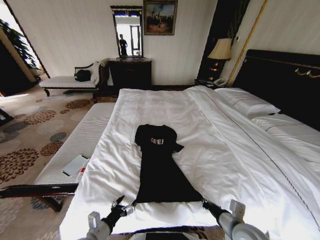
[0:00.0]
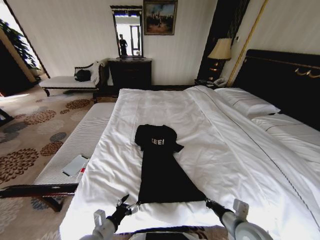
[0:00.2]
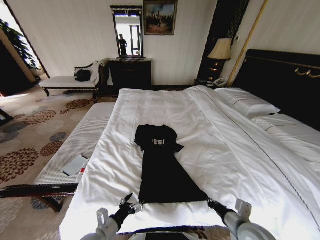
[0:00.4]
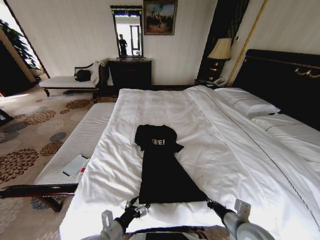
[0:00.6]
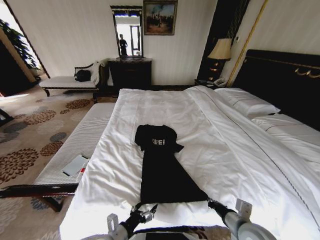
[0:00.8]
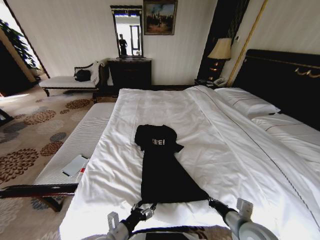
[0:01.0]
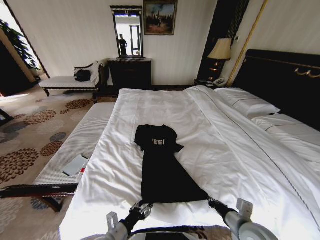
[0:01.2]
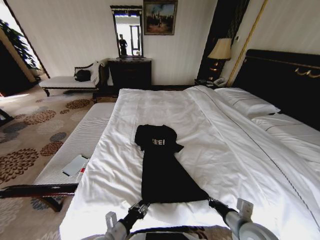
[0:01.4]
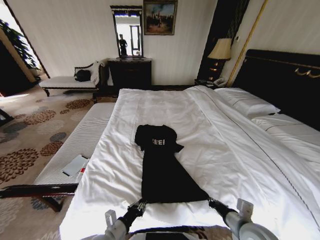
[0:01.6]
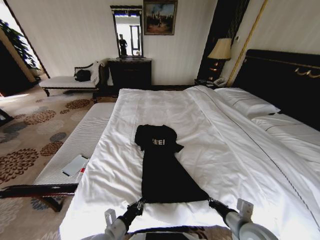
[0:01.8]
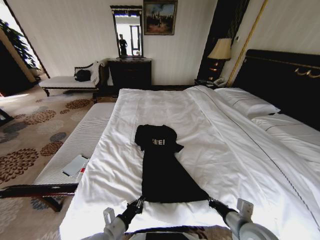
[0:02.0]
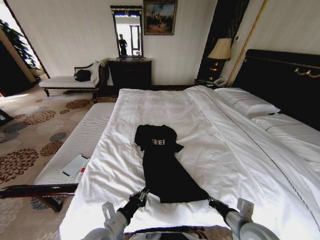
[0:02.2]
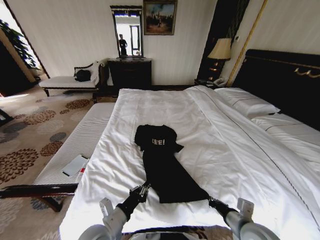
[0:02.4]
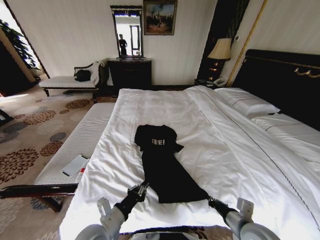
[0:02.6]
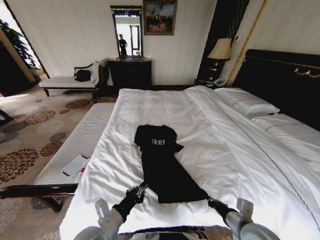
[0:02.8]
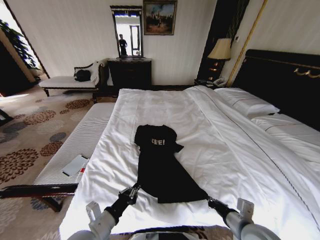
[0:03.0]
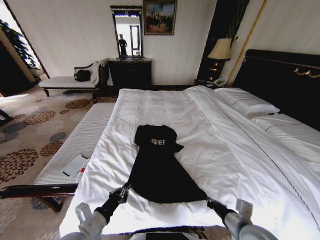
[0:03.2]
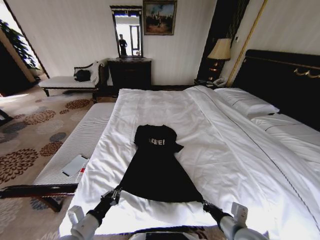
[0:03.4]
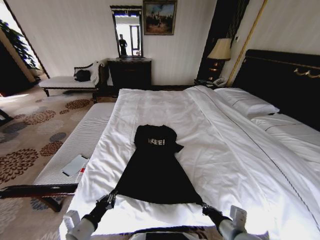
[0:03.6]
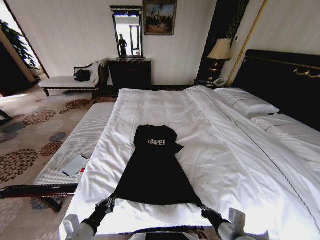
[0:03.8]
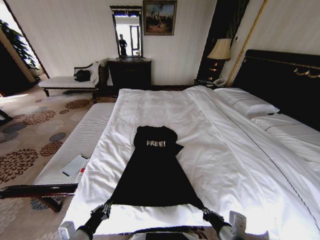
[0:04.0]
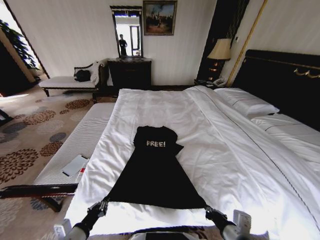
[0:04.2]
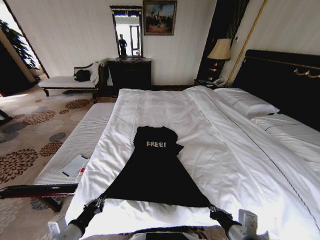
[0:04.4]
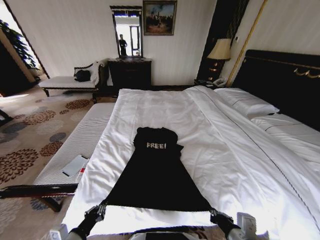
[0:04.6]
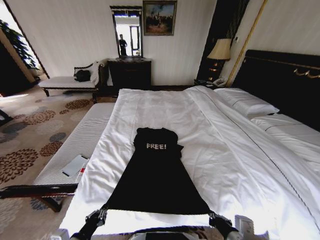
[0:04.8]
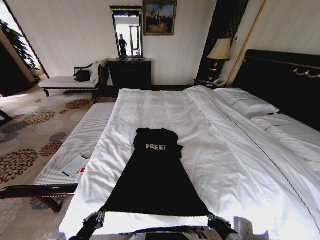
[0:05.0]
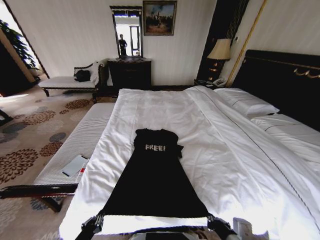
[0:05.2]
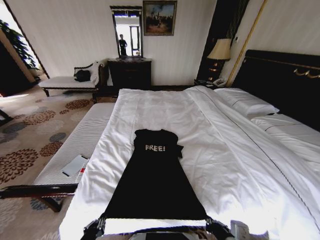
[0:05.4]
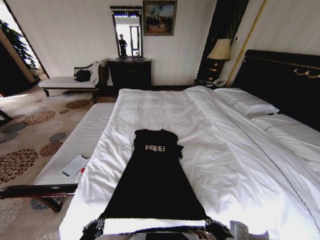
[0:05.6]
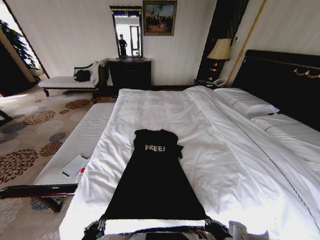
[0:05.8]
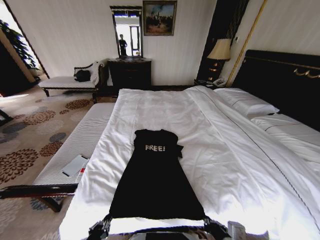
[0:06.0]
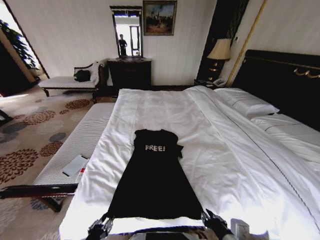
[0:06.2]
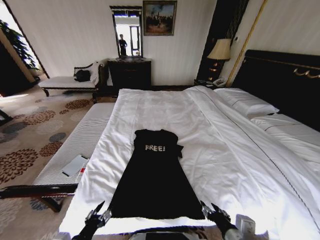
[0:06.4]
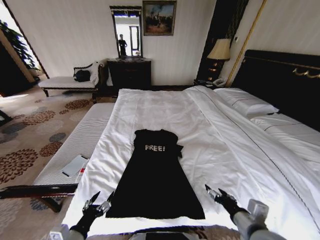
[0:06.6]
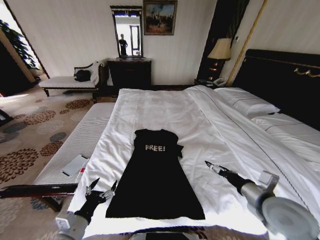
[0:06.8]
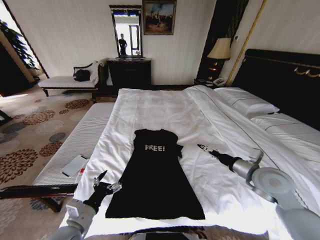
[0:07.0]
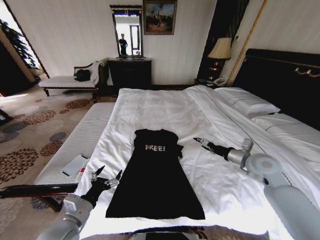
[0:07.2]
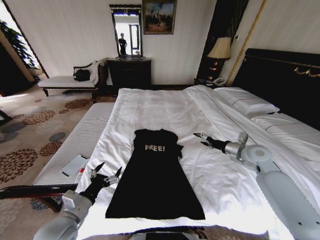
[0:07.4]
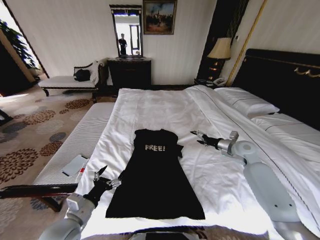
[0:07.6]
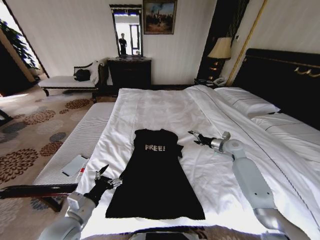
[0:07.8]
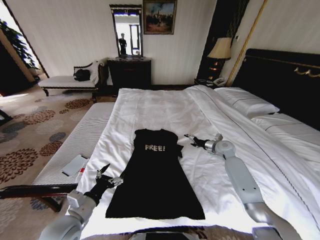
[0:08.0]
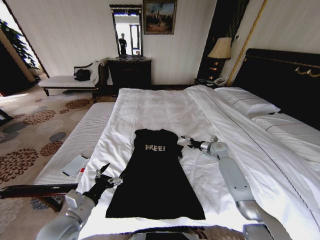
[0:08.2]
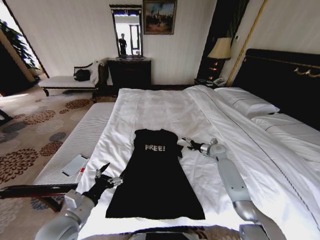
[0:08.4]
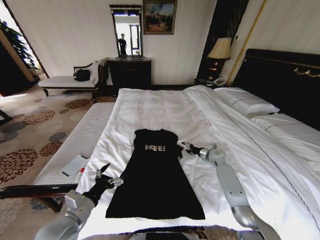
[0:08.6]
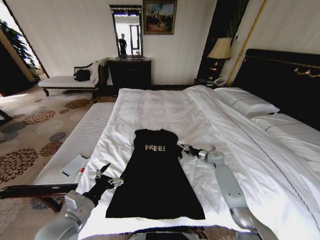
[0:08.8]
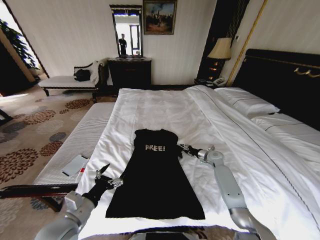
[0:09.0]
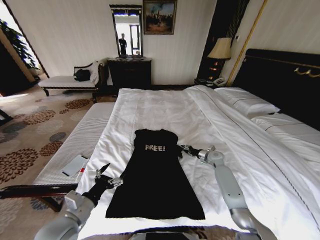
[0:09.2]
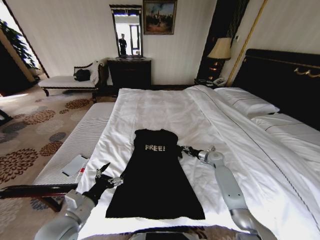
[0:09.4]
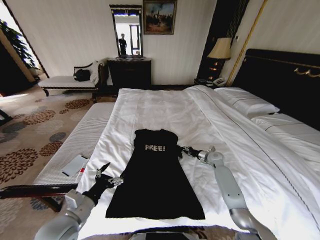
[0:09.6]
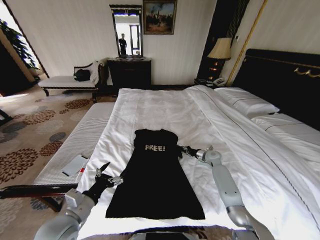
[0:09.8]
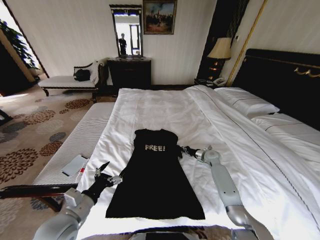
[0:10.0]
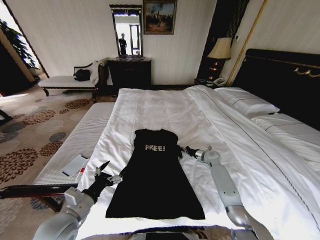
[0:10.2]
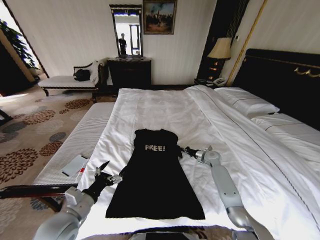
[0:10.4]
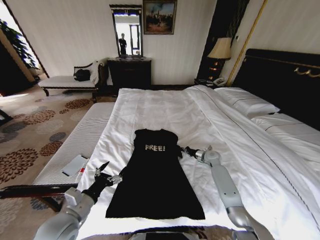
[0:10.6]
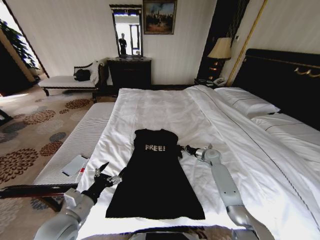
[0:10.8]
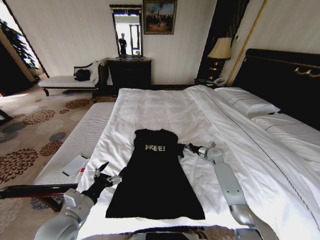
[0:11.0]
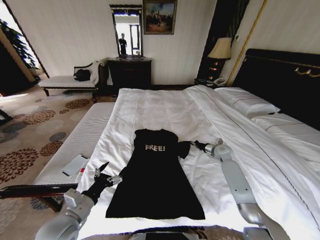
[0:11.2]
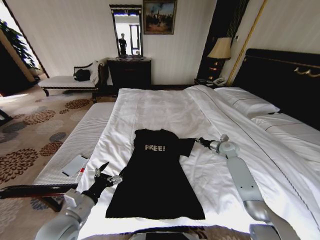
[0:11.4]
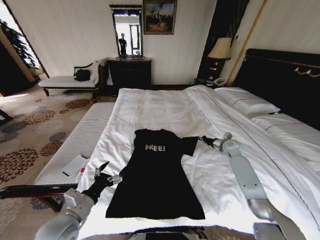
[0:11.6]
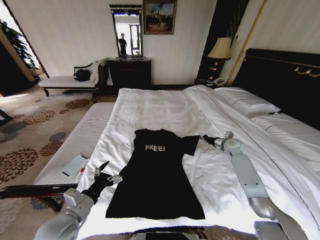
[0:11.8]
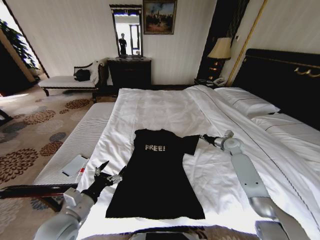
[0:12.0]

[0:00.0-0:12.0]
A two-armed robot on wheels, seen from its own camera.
Task of the whole recording: Fold the clothes on the bed.
0:00.0 to 0:01.6: The left gripper shifts approximately 5 cm to the right, and closes its fingers.
0:01.6 to 0:03.0: The left gripper moves upward, some 10 cm.
0:03.0 to 0:04.4: The left gripper moves to the left, about 10 cm. Meanwhile the right gripper changes place by approximately 5 cm.
0:04.4 to 0:06.0: The left gripper moves backward, roughly 5 cm.
0:06.0 to 0:07.6: The right gripper heads forward and to the right, covering approximately 40 cm, and opens its fingers; the left gripper goes roughly 15 cm forward and upward, and opens.
0:07.6 to 0:09.0: The right gripper moves downward, roughly 15 cm, and closes its fingers.
0:09.0 to 0:10.4: The right gripper closes its fingers.
0:10.4 to 0:12.0: The right gripper shifts about 15 cm upward and to the right.

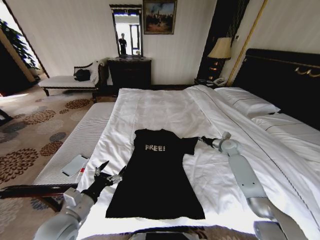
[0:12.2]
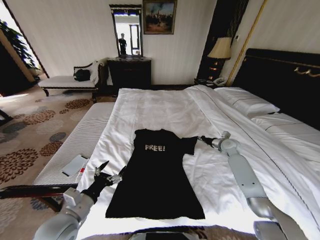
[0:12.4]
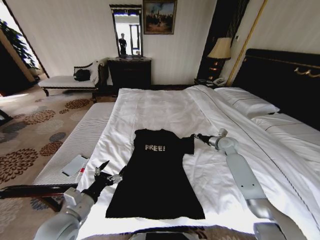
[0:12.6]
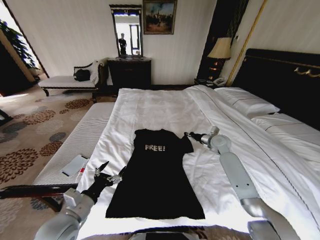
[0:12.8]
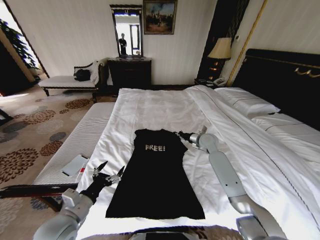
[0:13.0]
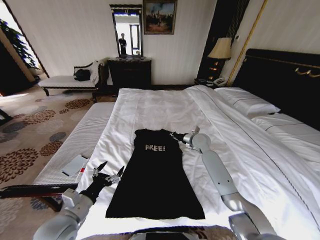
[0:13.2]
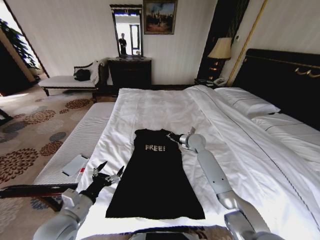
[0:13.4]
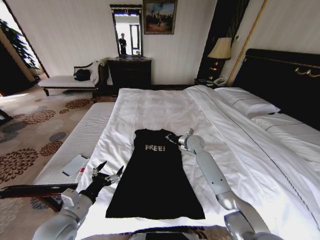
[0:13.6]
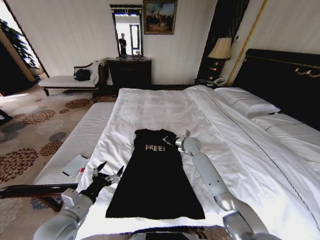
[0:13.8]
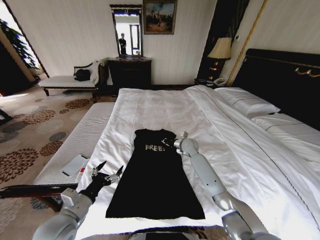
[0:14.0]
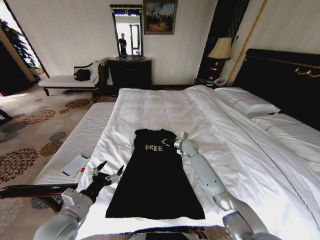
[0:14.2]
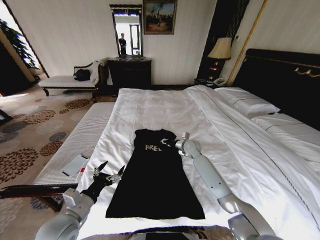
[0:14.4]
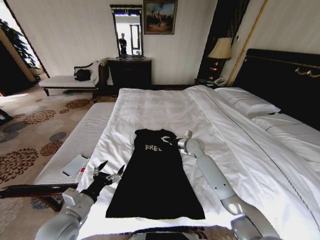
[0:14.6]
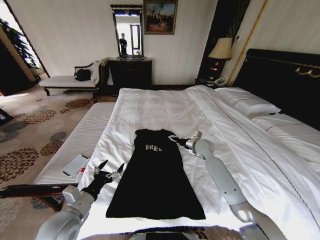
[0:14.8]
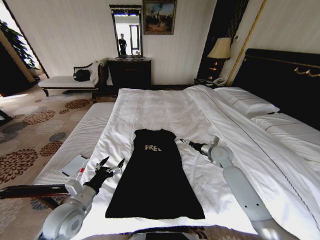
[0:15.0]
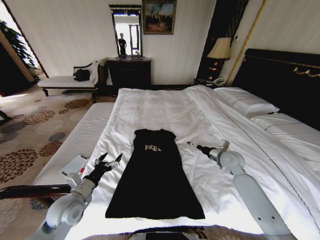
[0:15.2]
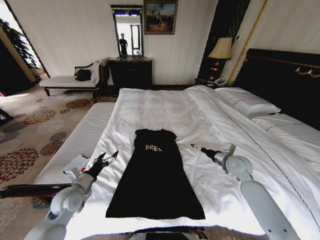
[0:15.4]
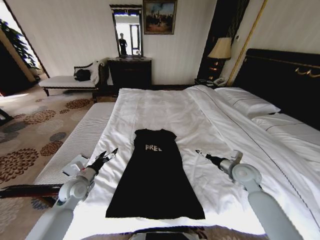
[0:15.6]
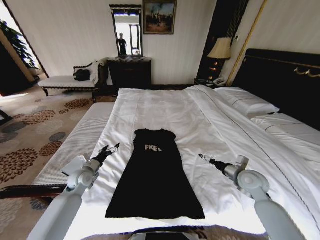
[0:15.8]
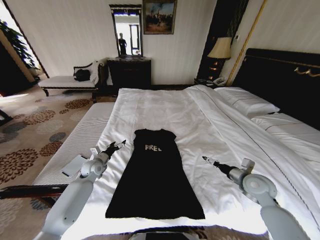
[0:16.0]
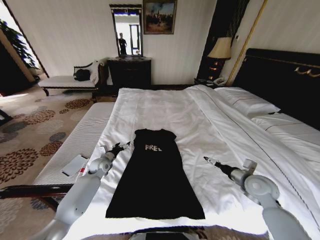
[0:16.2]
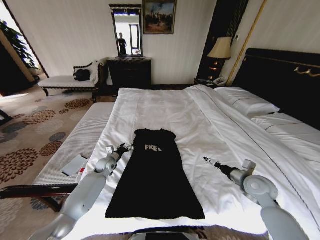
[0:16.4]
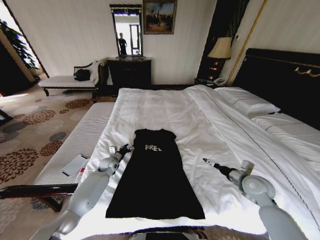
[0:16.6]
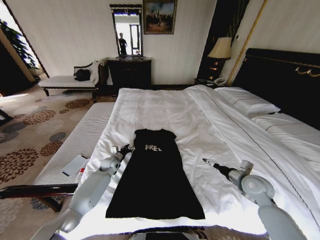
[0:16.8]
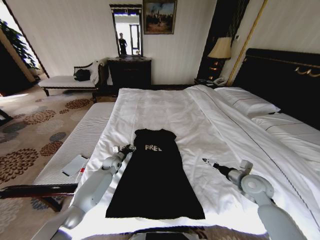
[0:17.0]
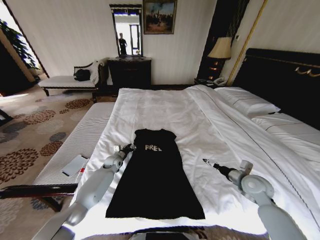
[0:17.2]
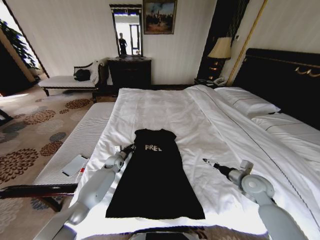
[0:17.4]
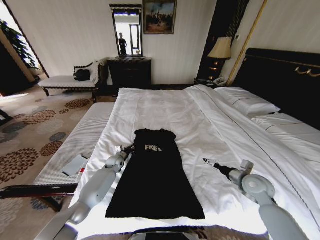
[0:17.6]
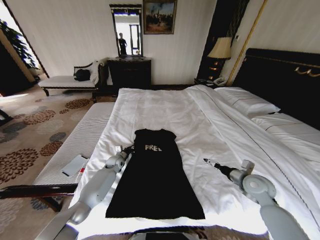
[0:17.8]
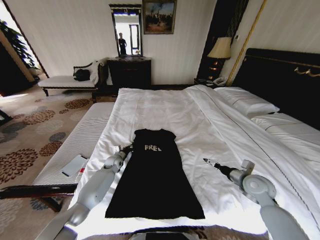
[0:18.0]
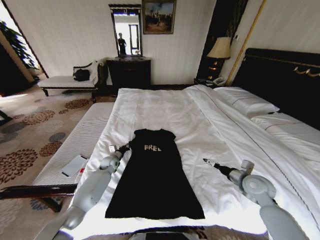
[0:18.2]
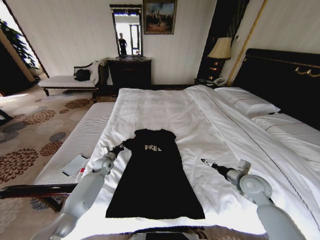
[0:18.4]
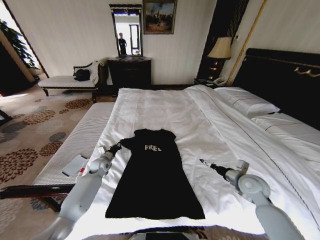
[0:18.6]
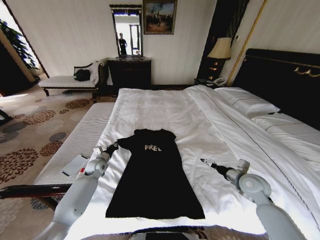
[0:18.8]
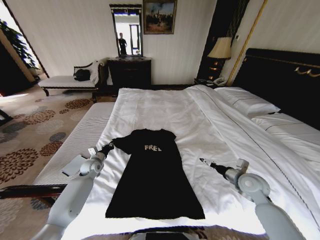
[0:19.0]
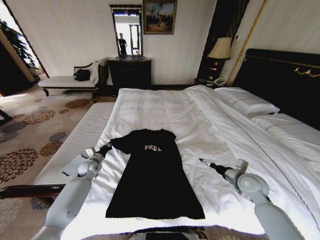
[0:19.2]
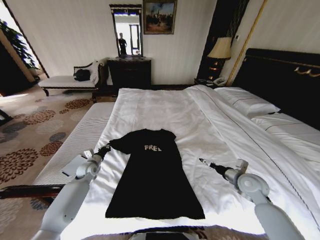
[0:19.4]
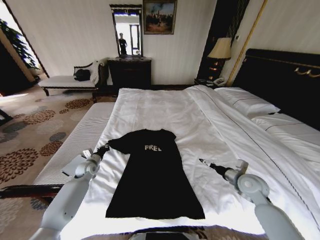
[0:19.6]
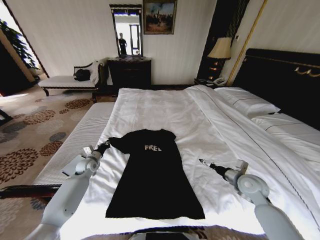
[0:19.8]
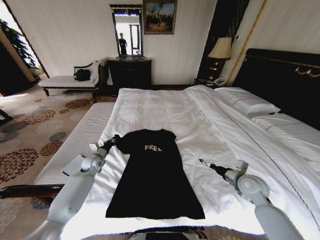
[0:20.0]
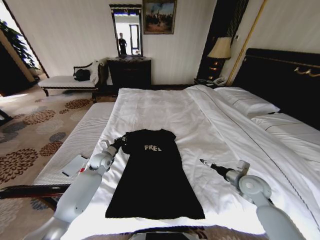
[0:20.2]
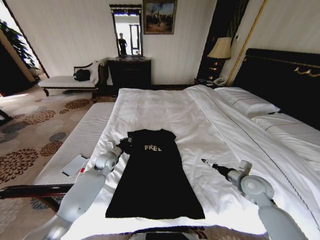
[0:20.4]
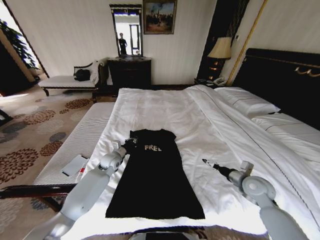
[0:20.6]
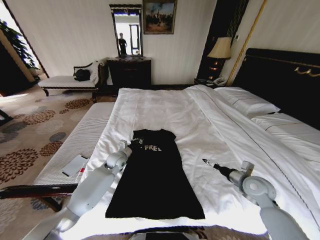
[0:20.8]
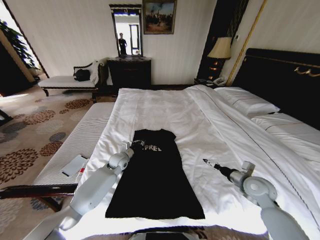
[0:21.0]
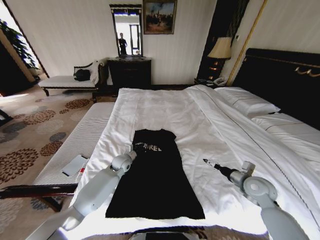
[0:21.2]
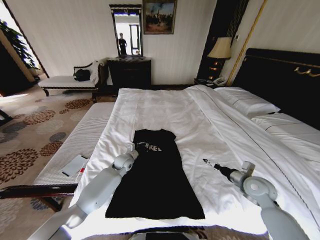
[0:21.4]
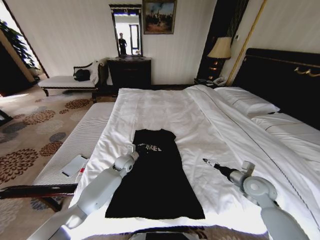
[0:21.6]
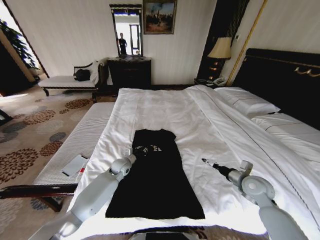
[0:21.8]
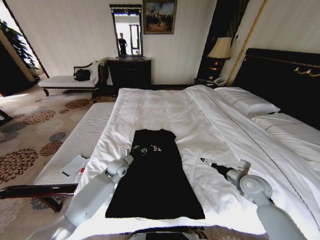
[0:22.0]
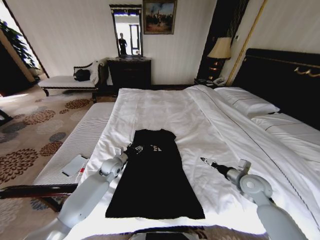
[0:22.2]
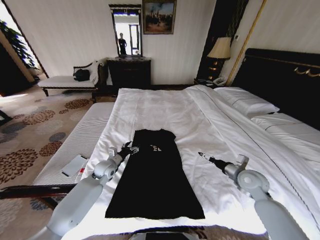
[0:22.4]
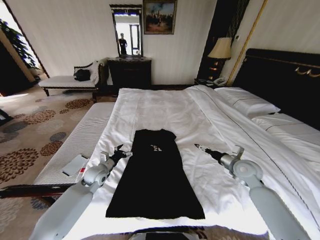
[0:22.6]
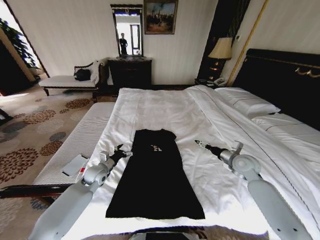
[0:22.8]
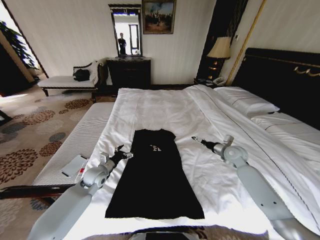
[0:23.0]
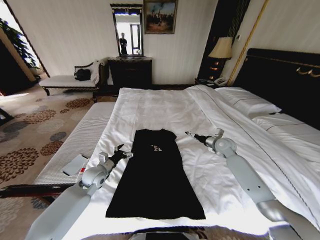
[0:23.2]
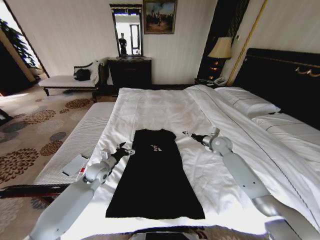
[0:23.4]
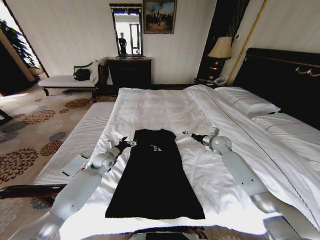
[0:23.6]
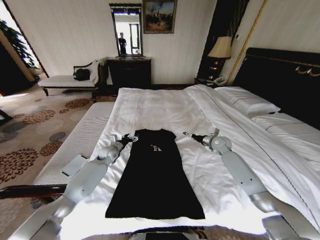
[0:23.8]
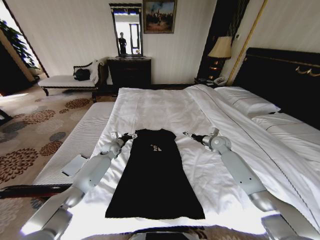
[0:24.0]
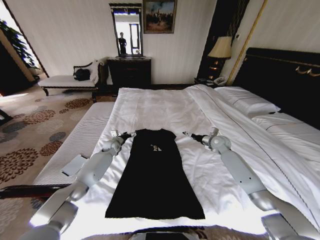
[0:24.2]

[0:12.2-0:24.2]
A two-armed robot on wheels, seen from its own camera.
Task of the whole recording: Fold the clothes on the bed.
0:12.2 to 0:13.8: The right gripper goes about 20 cm to the left.
0:13.8 to 0:15.2: The left gripper heads forward, covering roughly 5 cm. Meanwhile the right gripper shifts roughly 20 cm to the right and backward, and opens.
0:15.2 to 0:16.6: The left gripper shifts roughly 25 cm forward and downward. The right gripper moves backward, about 10 cm.
0:16.6 to 0:18.2: The left gripper closes up.
0:18.2 to 0:19.8: The left gripper is displaced to the left by some 10 cm.
0:19.8 to 0:21.2: The left gripper moves to the right, about 20 cm.
0:21.2 to 0:22.6: The right gripper goes approximately 5 cm forward, while the left gripper travels to the left and backward by roughly 15 cm, and opens its fingers.
0:22.6 to 0:24.2: The grippers both shift forward by some 20 cm.
